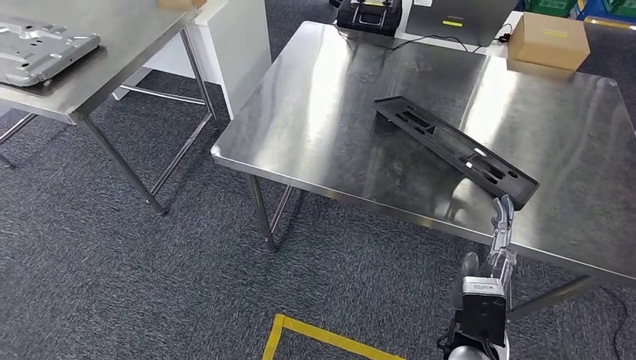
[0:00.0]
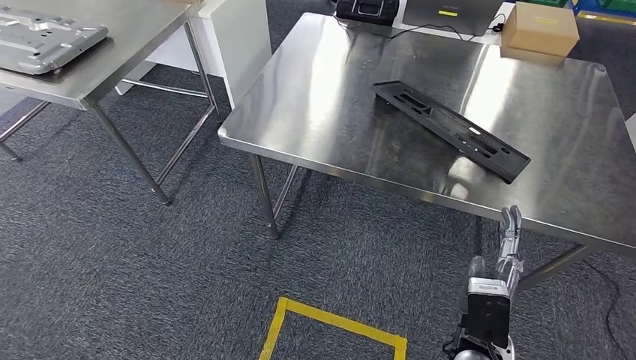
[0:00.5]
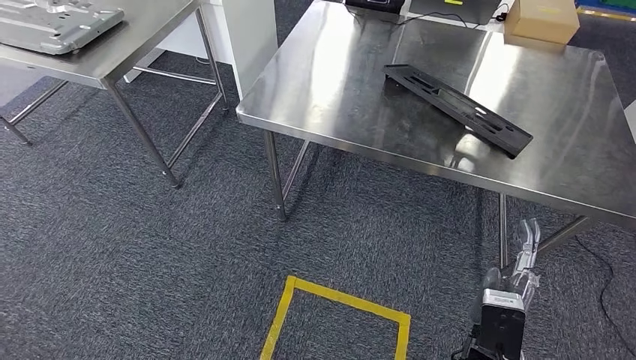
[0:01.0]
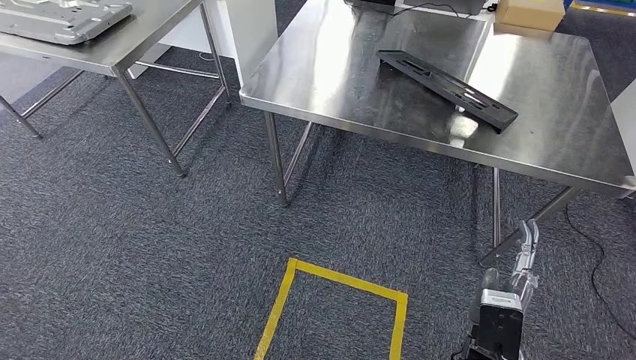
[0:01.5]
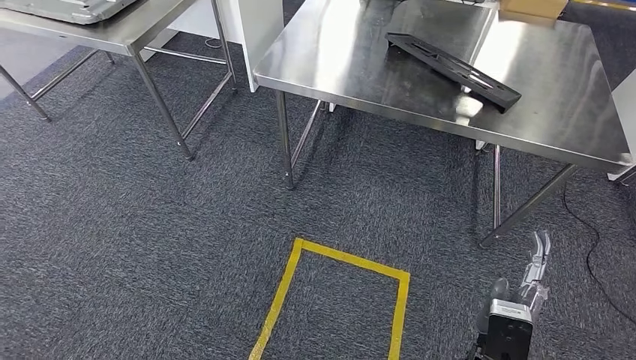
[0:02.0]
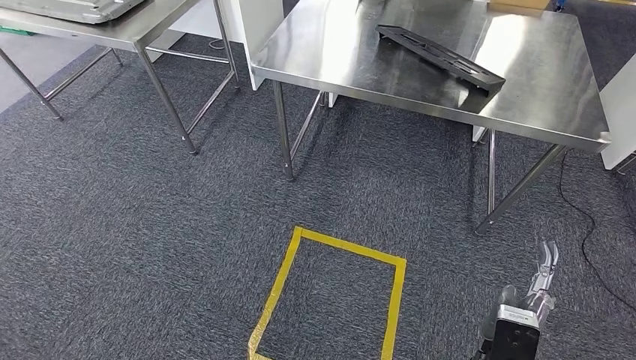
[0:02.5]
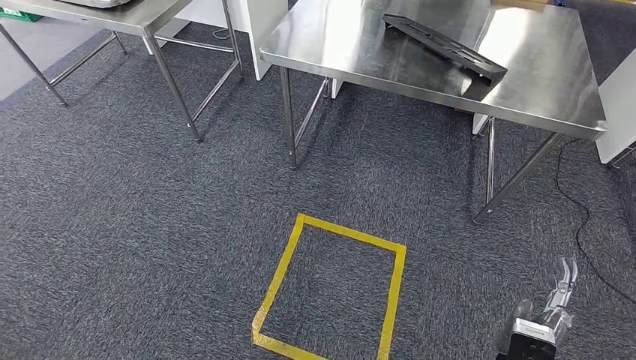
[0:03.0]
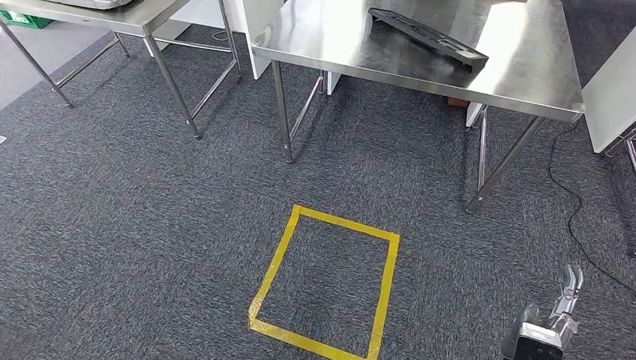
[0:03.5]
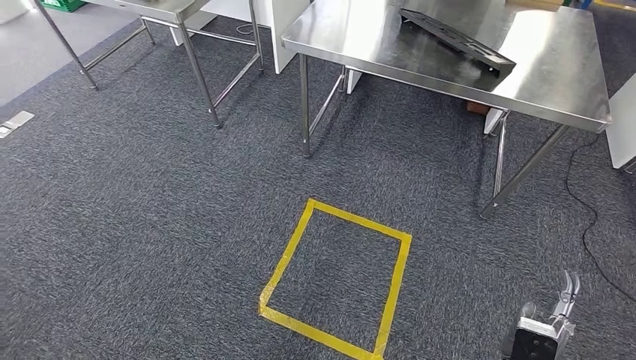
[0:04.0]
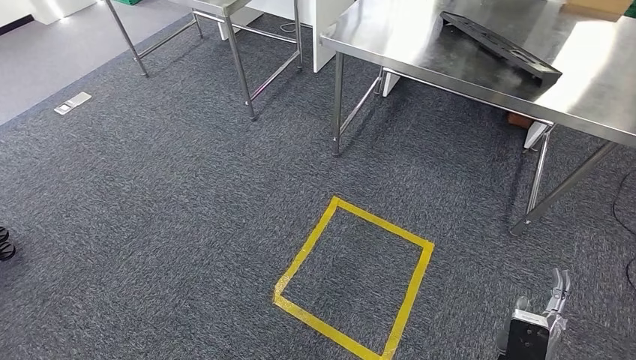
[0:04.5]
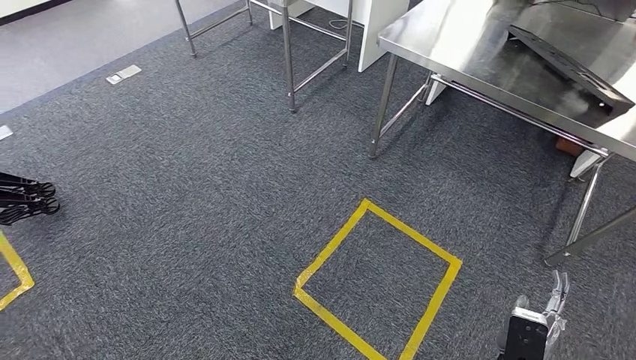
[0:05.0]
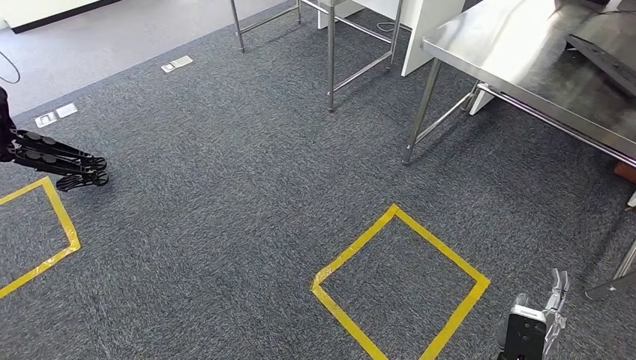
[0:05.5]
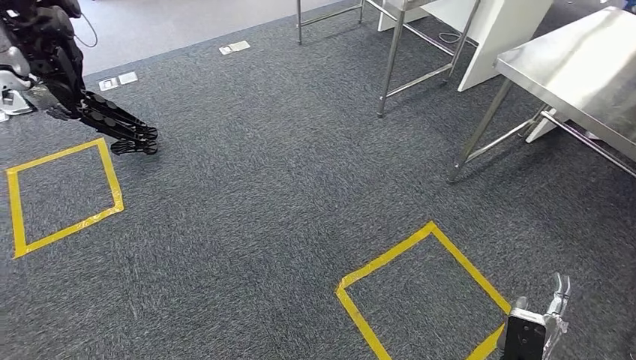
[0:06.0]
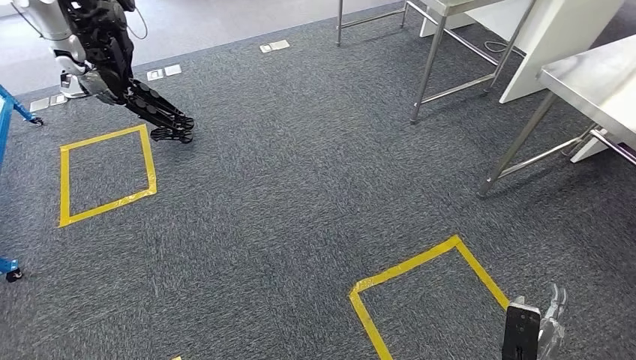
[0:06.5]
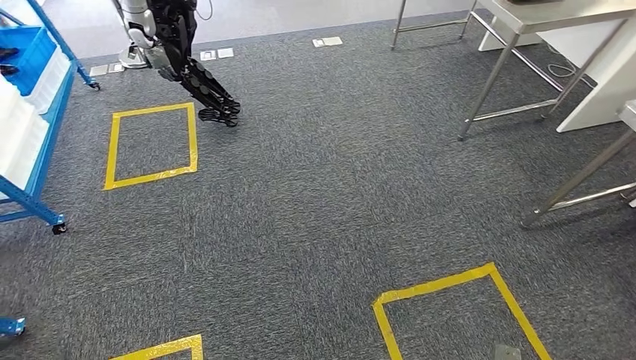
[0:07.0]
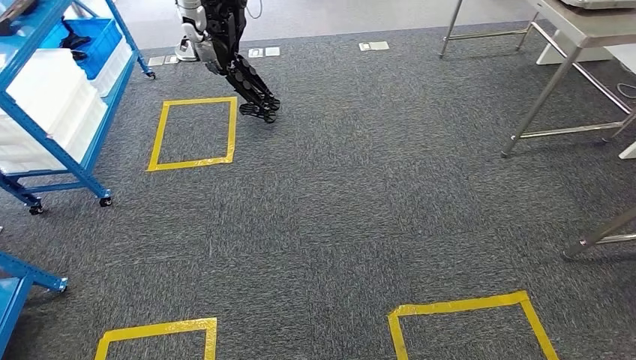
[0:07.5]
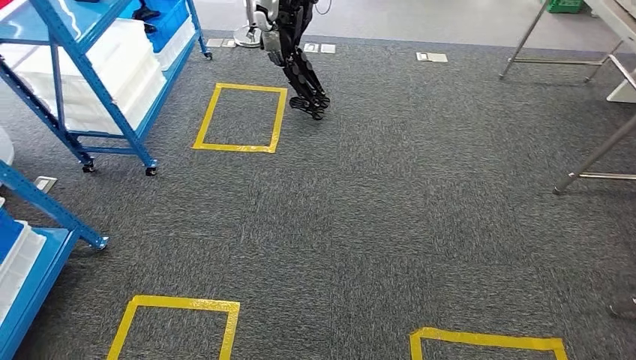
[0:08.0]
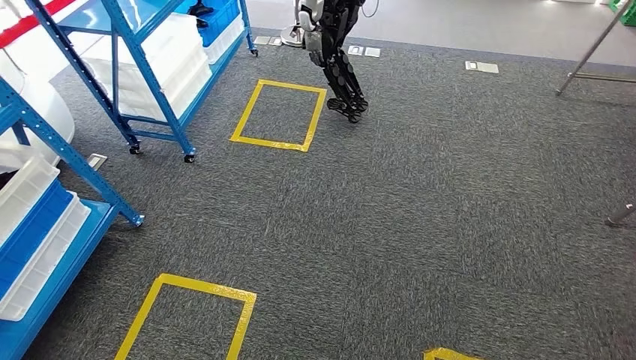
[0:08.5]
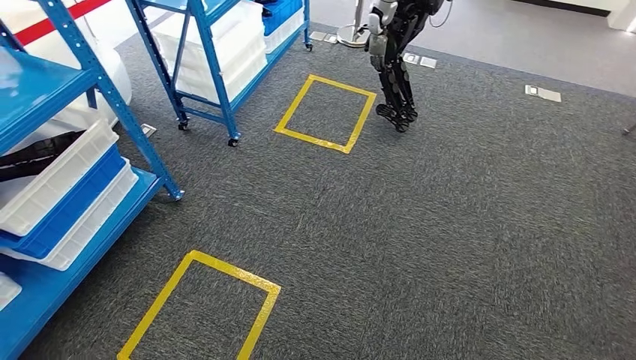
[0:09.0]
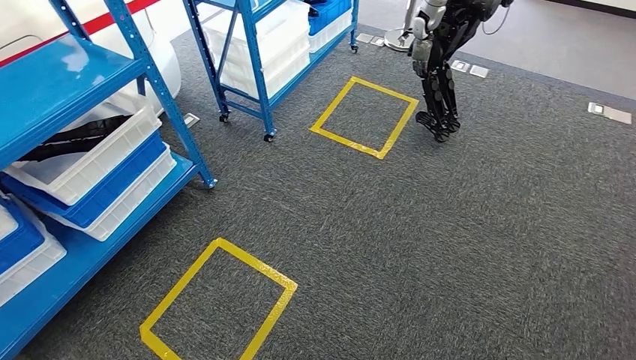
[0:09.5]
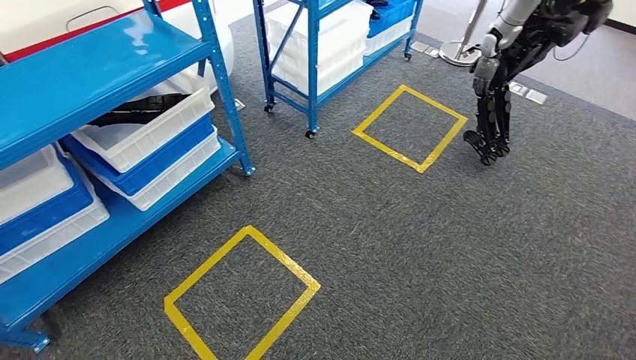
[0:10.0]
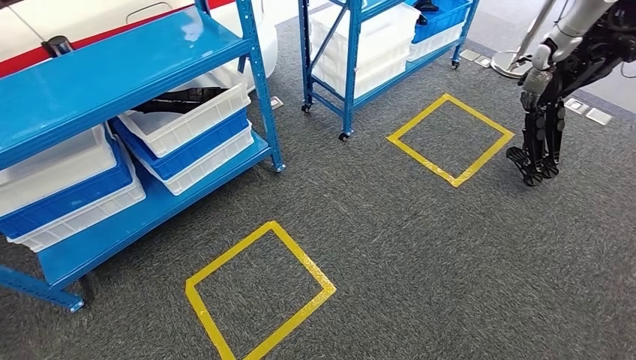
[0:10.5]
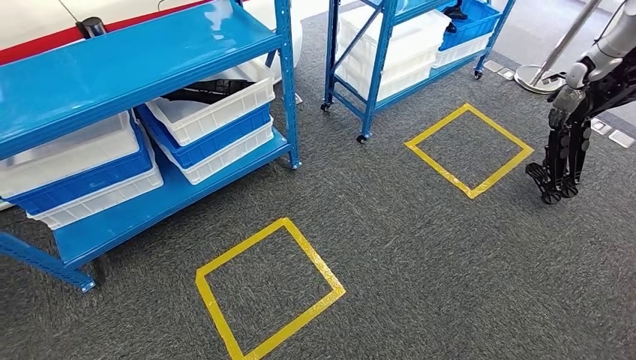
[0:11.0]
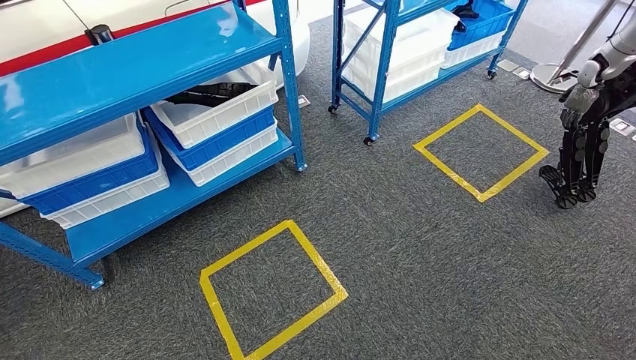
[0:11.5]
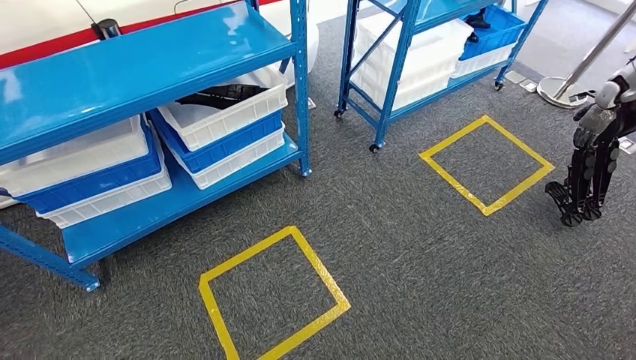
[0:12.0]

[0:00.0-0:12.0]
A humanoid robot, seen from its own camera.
Step, 0:00.0 to 0:02.5: Insert the large material into the corresponding slot on the workbench.

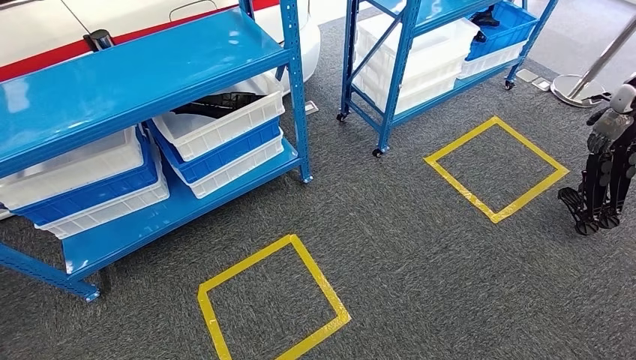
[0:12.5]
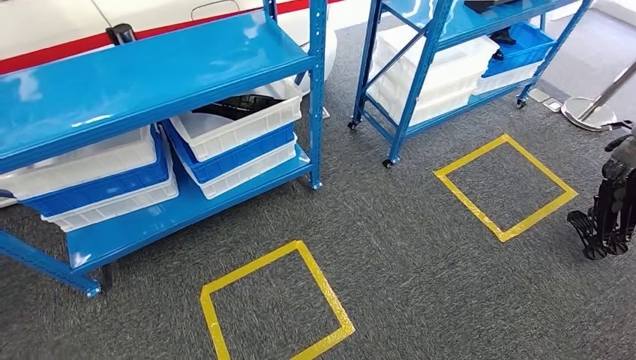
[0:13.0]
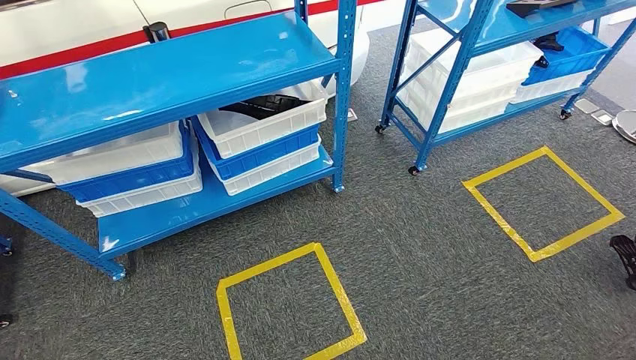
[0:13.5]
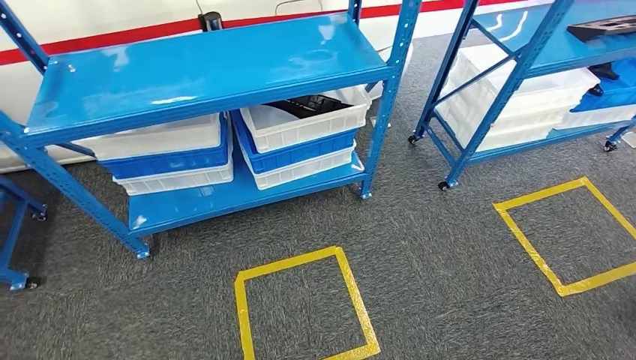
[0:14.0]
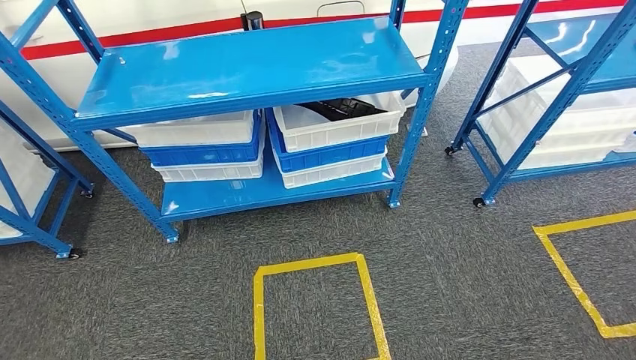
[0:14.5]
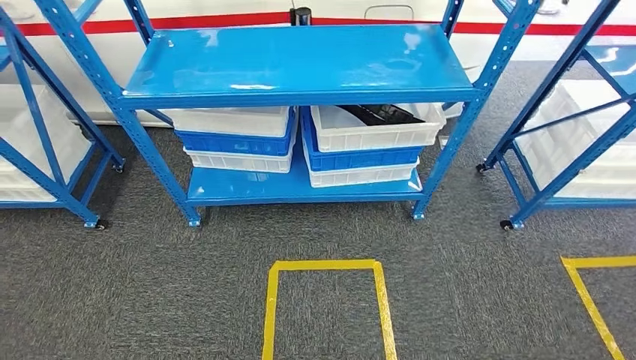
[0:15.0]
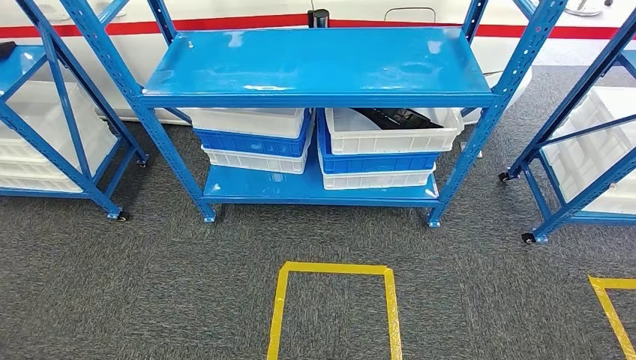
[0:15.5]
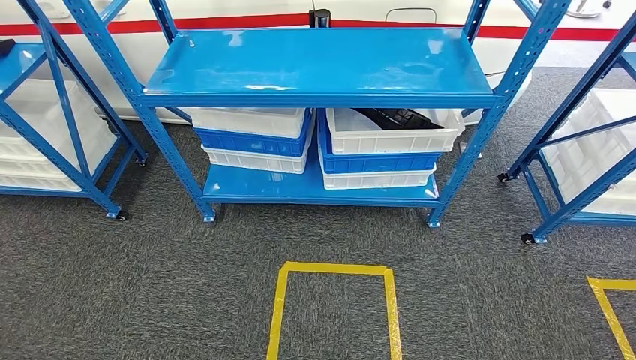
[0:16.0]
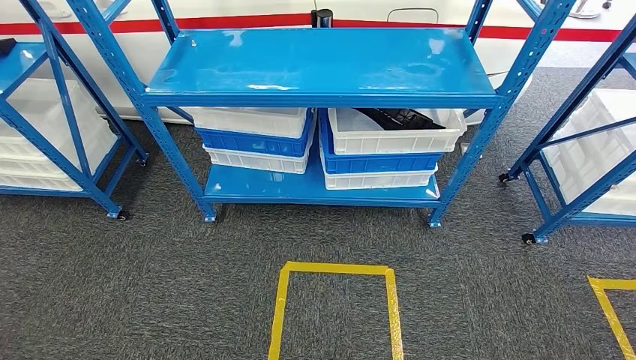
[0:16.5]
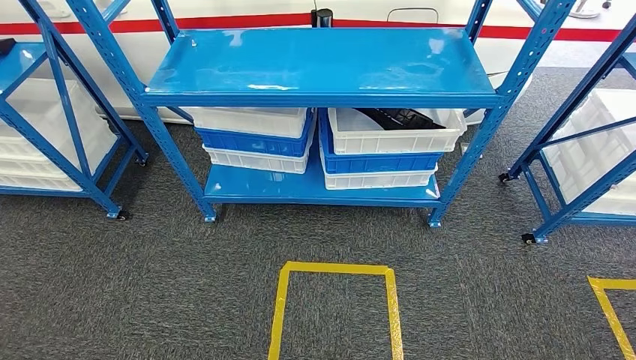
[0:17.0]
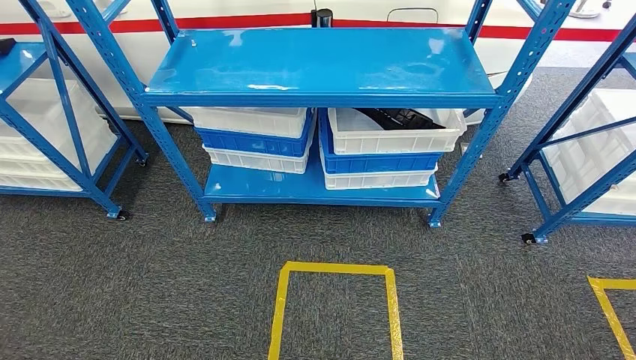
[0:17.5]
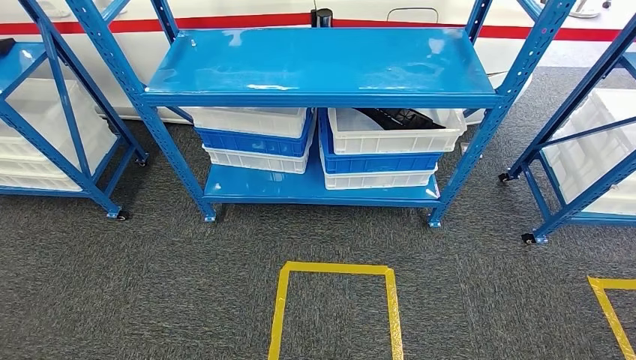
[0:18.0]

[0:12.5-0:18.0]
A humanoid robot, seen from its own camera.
Step, 0:12.5 to 0:18.0: Move to the initial position of the shelf.
0:16.0 to 0:18.0: The left hand changes place by approximately 5 cm.
